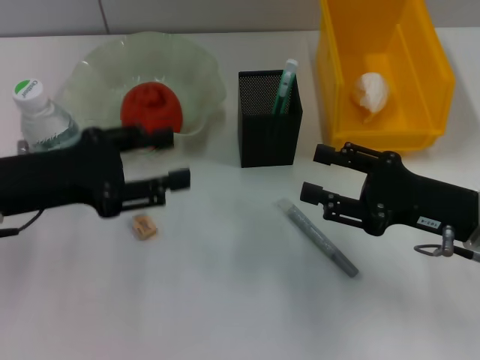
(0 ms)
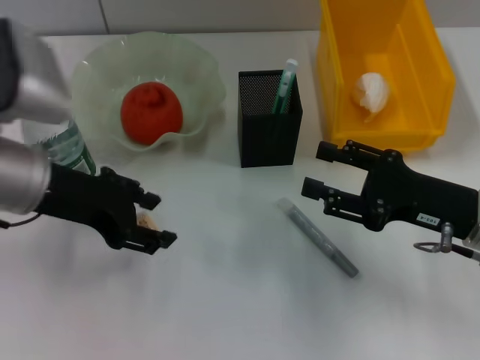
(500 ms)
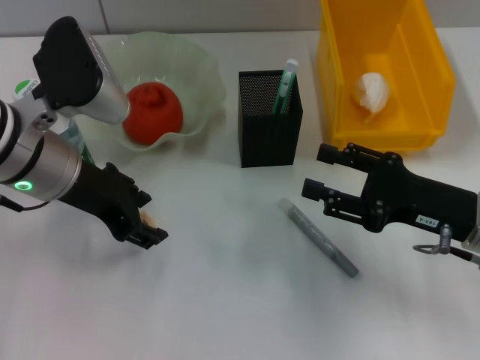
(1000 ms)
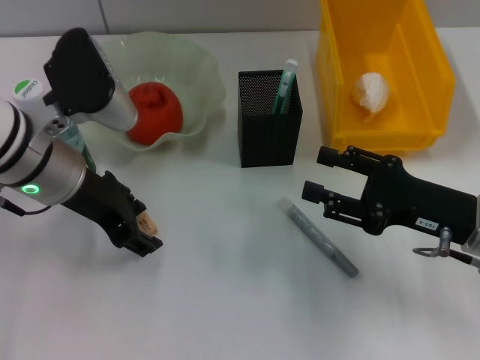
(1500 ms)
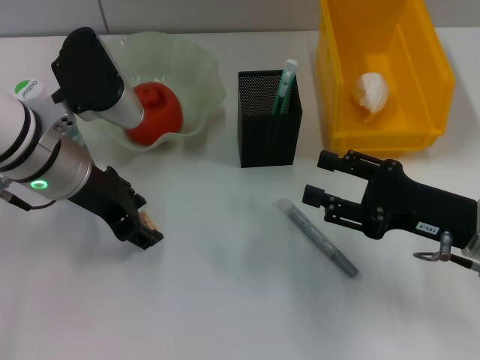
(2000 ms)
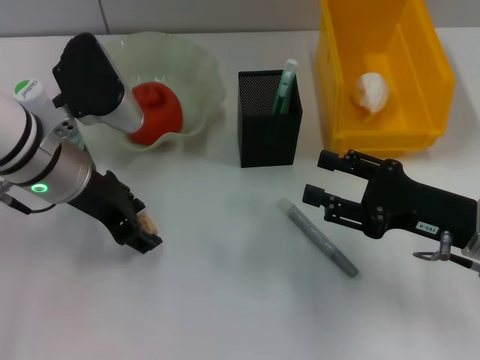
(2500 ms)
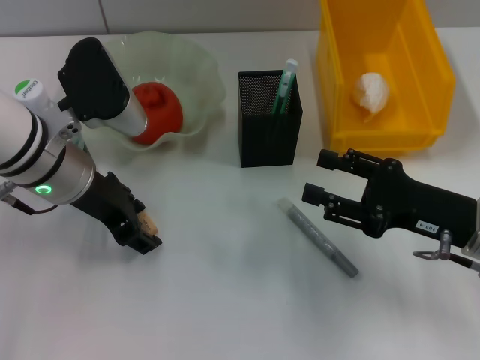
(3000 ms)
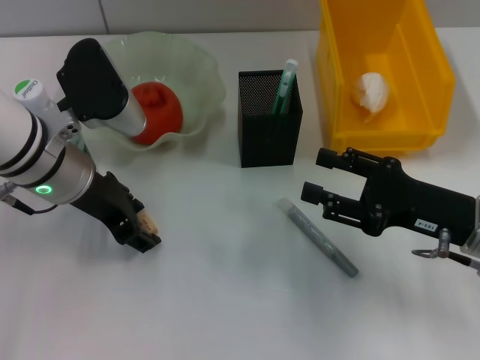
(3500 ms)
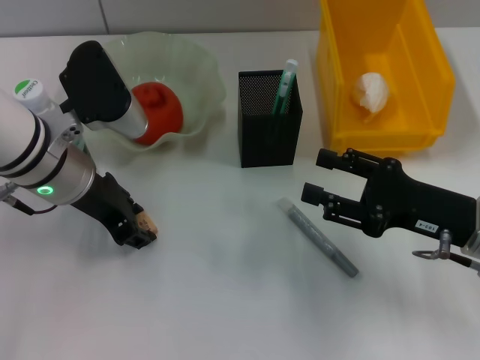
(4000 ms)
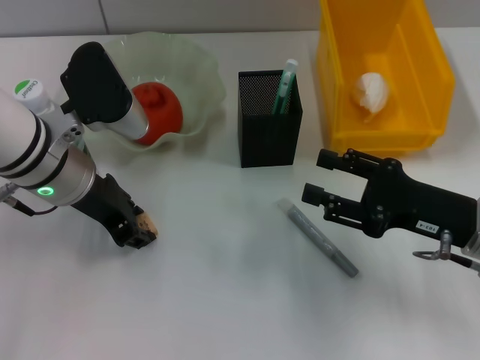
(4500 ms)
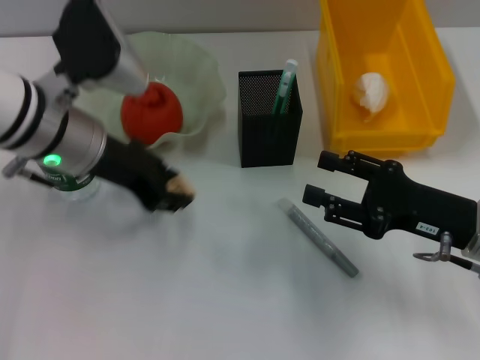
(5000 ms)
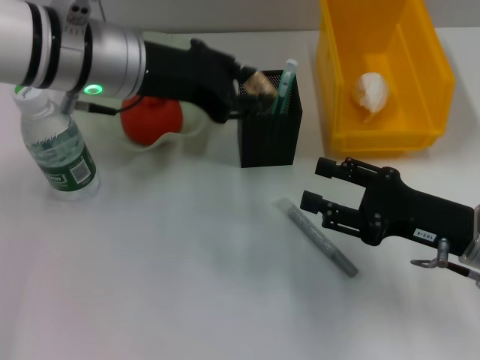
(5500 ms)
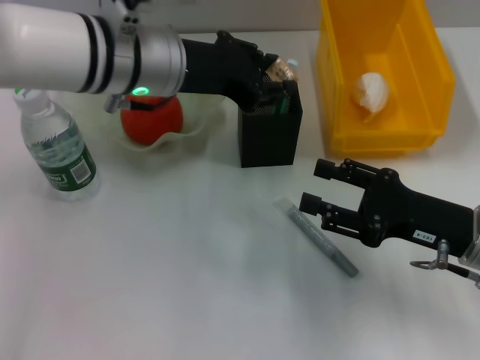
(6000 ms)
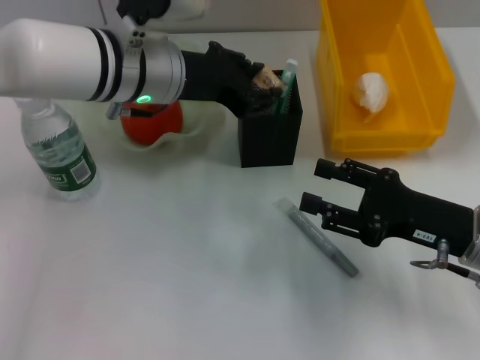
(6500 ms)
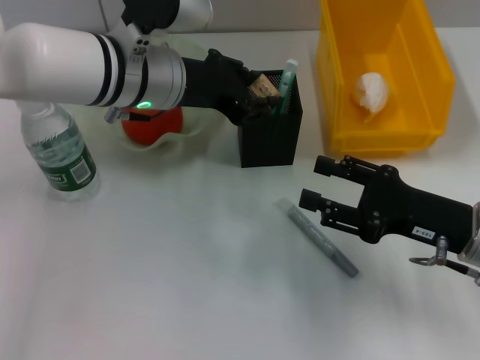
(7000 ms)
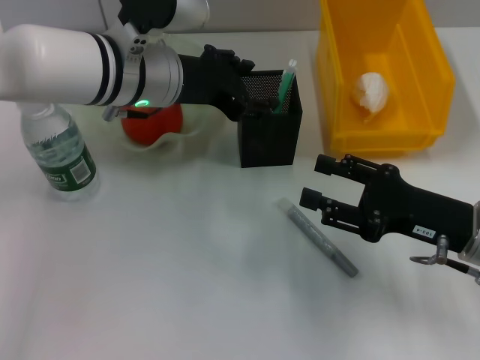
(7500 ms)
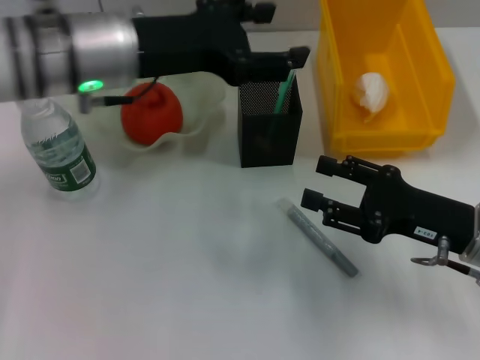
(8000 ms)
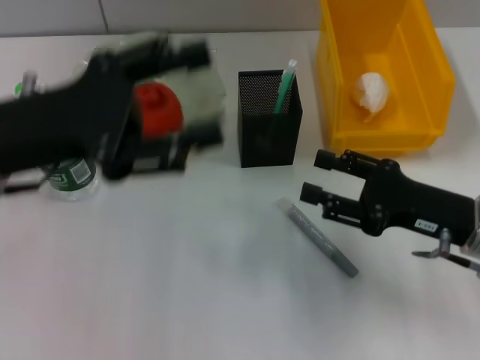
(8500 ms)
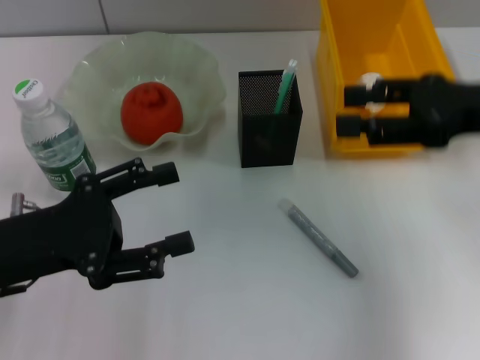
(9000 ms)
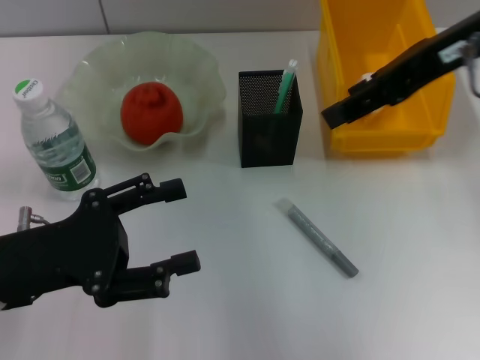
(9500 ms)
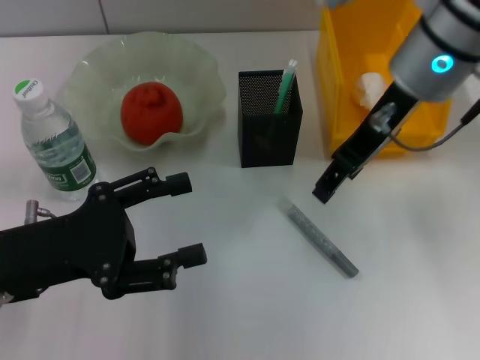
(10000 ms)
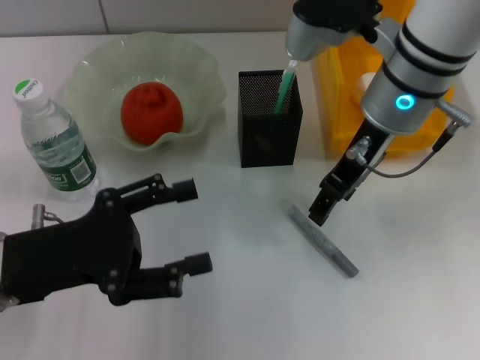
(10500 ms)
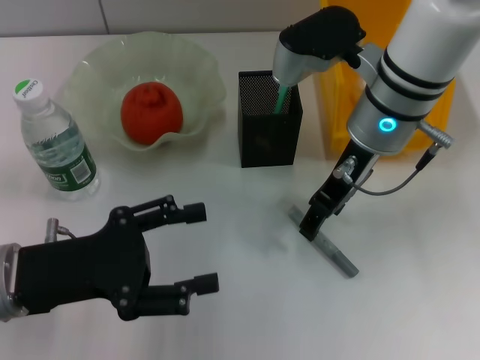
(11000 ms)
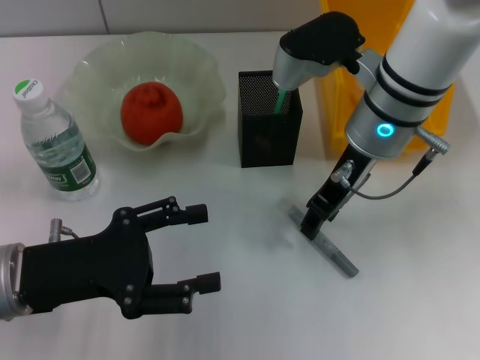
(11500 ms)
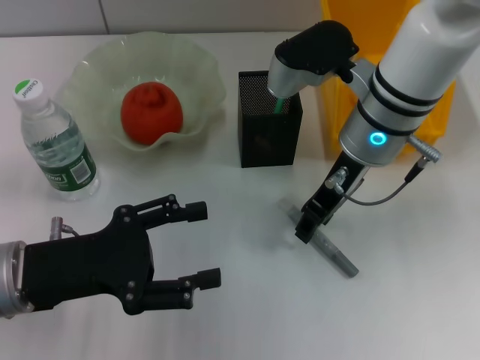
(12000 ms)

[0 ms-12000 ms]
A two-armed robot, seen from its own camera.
Step, 0 ms to 4500 ms: Grab the eraser with the left hand.
Step, 5000 ms to 7500 ms: Place the eraser into the pen holder with the left hand.
0 ms to 2000 ms: The left gripper is displaced to the right and forward by roughly 10 cm.
2000 ms to 4000 ms: There are only small adjustments of the grippers.
4000 ms to 6000 ms: The left gripper moves to the right and upward, approximately 10 cm.
6000 ms to 8000 ms: The left gripper opens its fingers.
8000 ms to 10000 ms: The left gripper is displaced backward, to the left and downward by some 20 cm, while the right gripper is displaced upward, forward and to the left by some 25 cm.
10000 ms to 12000 ms: The right gripper travels downward by some 10 cm.

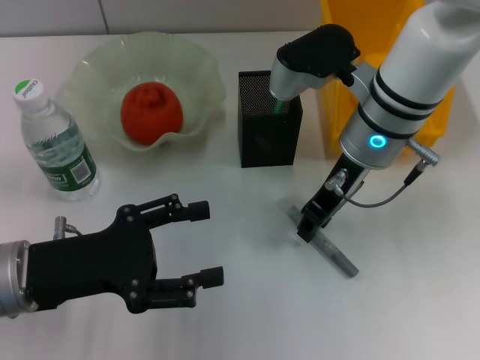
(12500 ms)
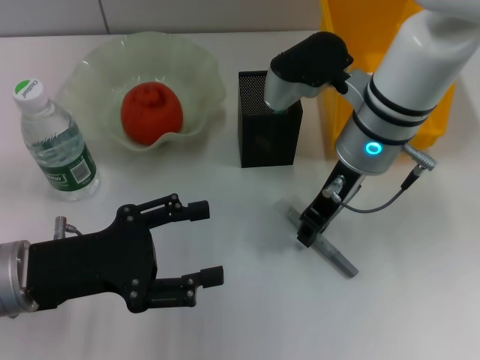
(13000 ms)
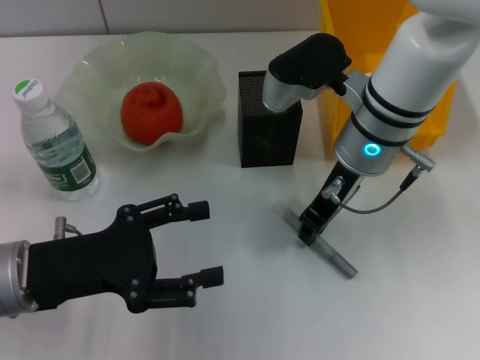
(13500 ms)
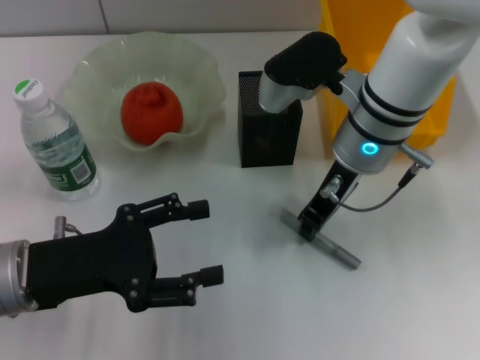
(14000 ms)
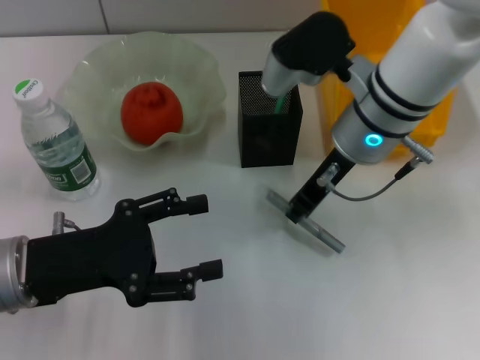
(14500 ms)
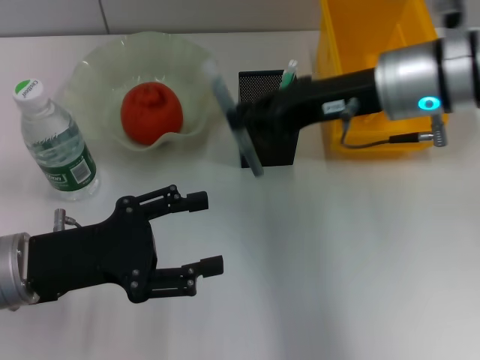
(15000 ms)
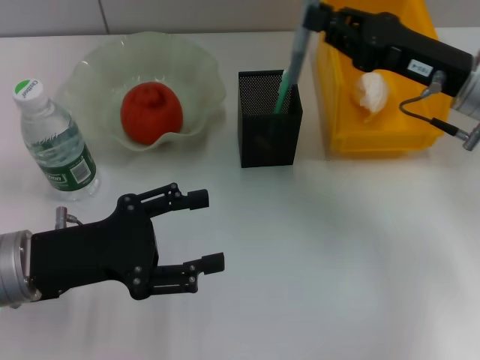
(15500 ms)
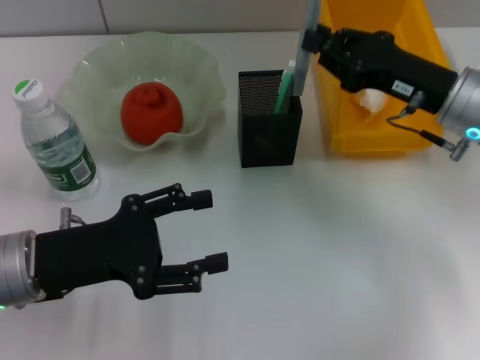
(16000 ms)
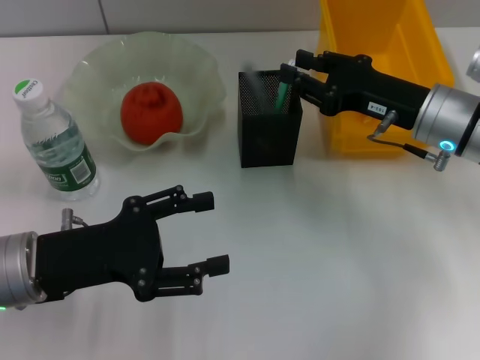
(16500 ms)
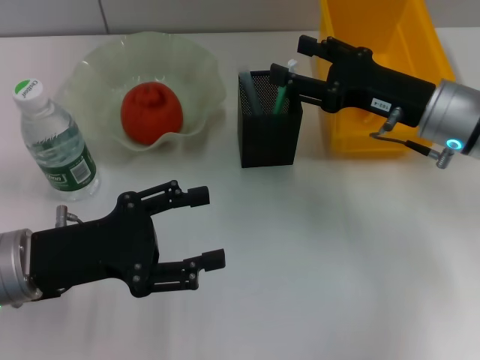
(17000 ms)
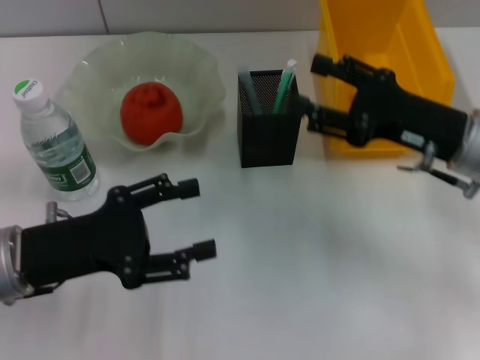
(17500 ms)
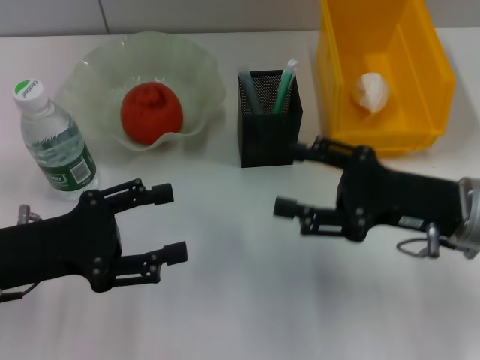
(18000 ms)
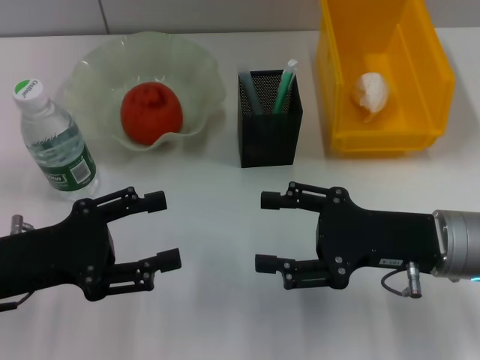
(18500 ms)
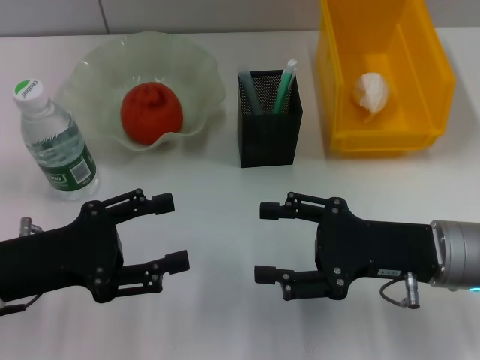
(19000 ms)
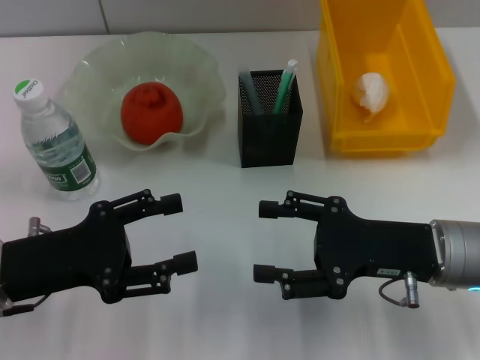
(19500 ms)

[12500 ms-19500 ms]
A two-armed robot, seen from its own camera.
Step, 14500 ms to 17000 ms: Place the gray glue into the pen holder with the right hand.
12500 ms to 14500 ms: The right gripper closes up.
14500 ms to 16000 ms: The right gripper moves to the right, about 10 cm.
16000 ms to 17500 ms: The right gripper opens up.
17500 ms to 19500 ms: The right gripper shifts about 5 cm backward.

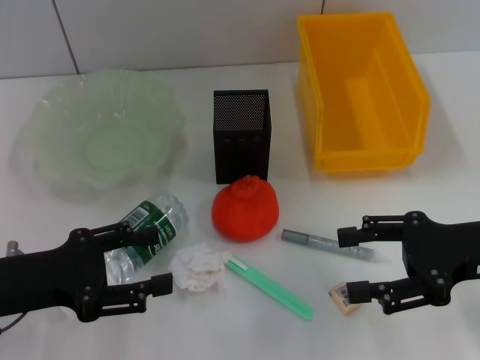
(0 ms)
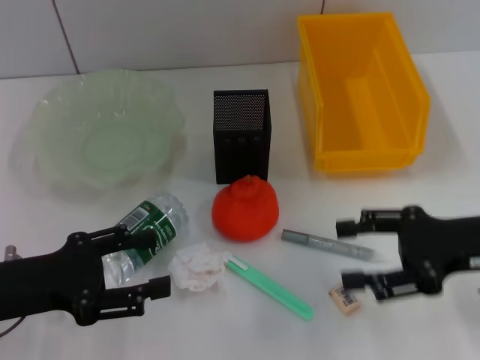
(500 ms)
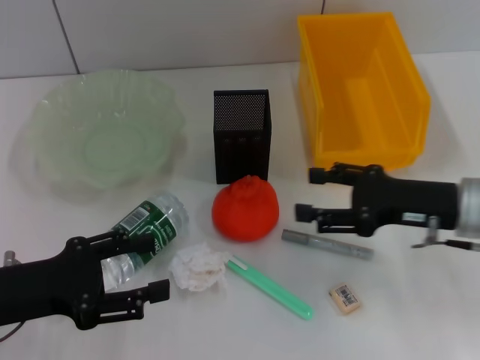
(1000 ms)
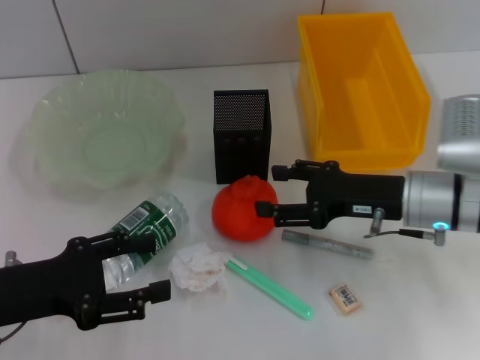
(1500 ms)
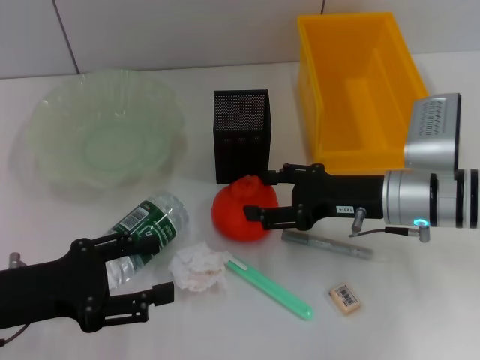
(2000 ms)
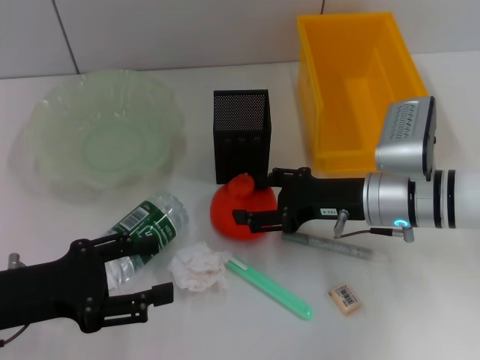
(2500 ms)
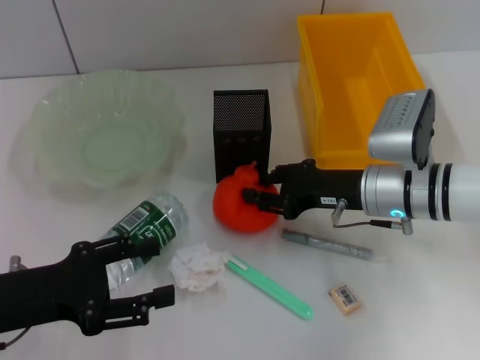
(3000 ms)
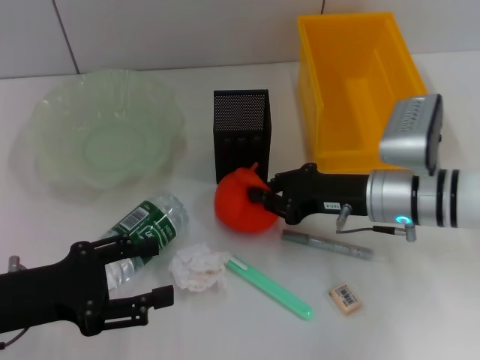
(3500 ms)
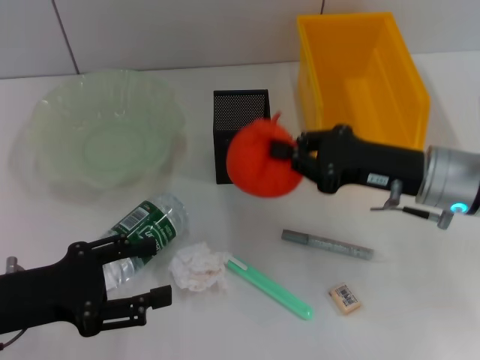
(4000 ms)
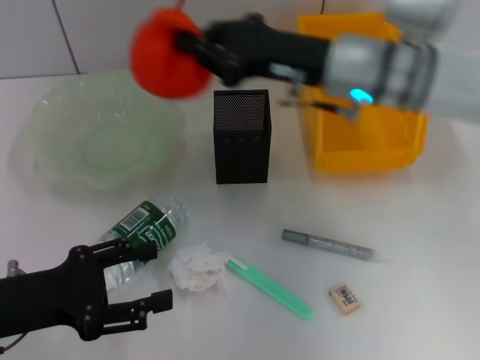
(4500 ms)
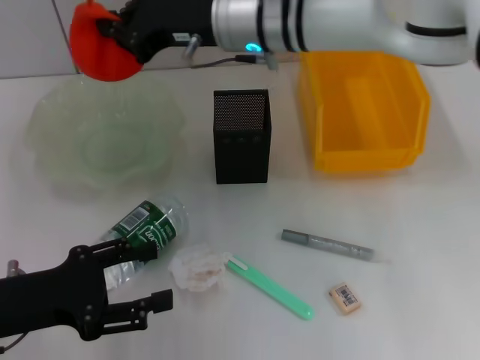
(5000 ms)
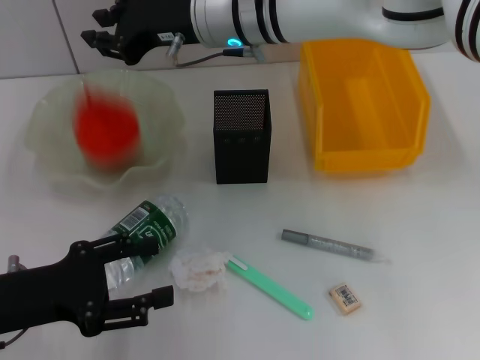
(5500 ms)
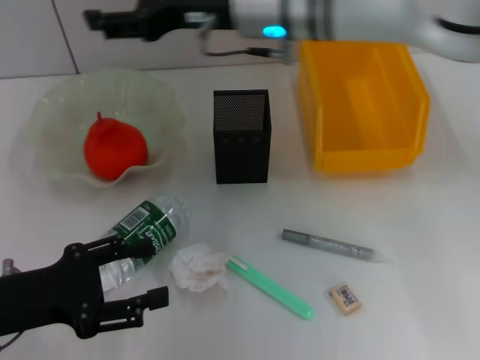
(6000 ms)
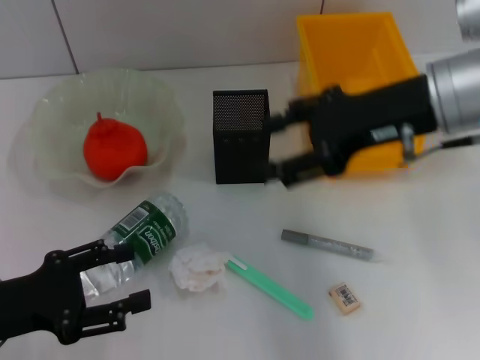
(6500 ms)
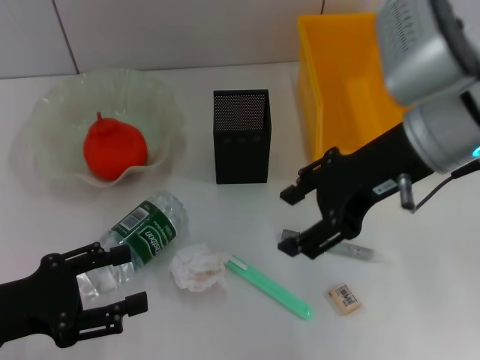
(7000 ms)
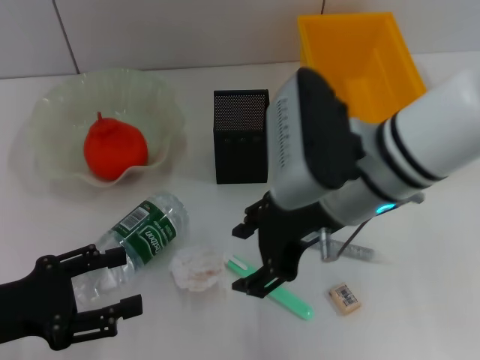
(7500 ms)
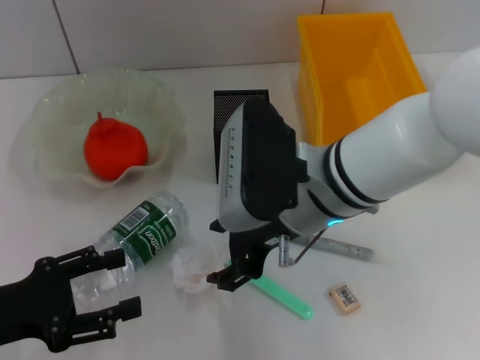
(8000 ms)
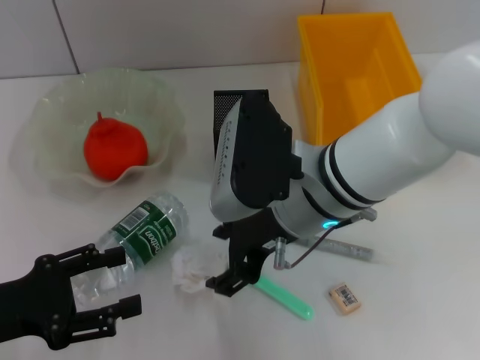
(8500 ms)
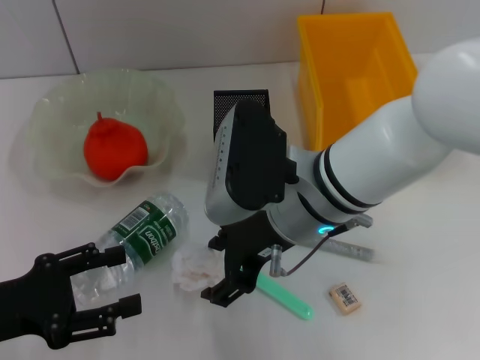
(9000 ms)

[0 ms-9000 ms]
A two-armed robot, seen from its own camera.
Step, 0 ms to 3000 ms: Grab the orange with the right hand.
Step, 3500 ms to 5500 ms: Place the orange into the fruit bowl with the right hand.
0 ms to 2000 ms: The right gripper goes some 10 cm to the left, forward and downward.
2000 ms to 4500 ms: The right gripper moves upward, forward and to the left, roughly 15 cm, and closes up.
4500 ms to 7000 ms: The right gripper moves backward and upward, about 10 cm, travels to the left and back again, approximately 10 cm each way, and opens.
7000 ms to 9000 ms: The right gripper travels to the left and downward by about 10 cm.
